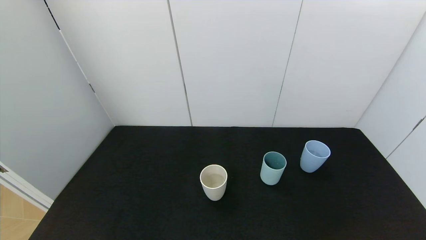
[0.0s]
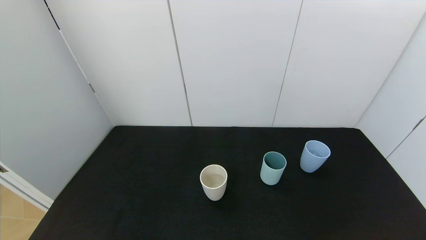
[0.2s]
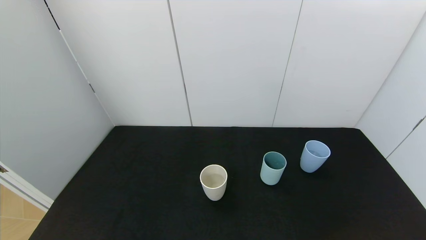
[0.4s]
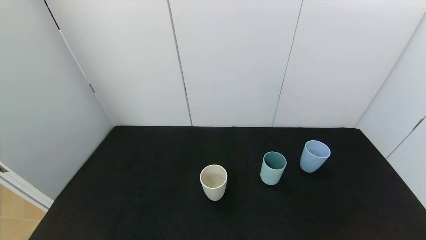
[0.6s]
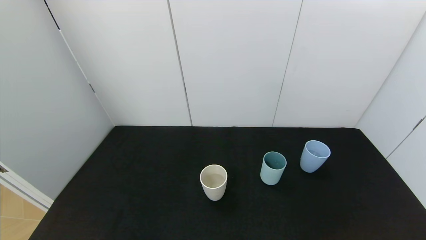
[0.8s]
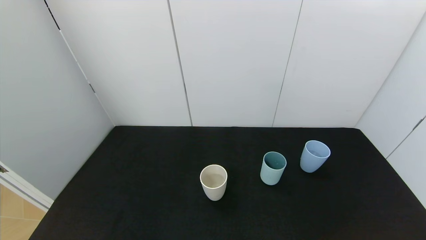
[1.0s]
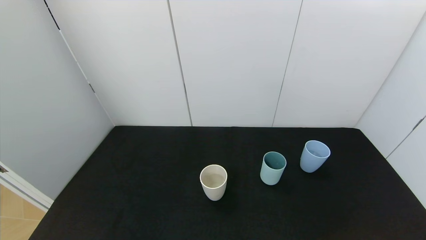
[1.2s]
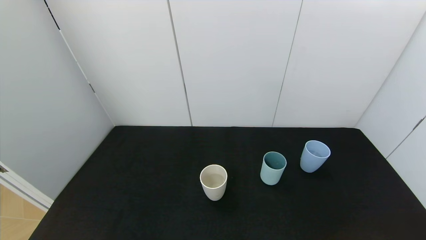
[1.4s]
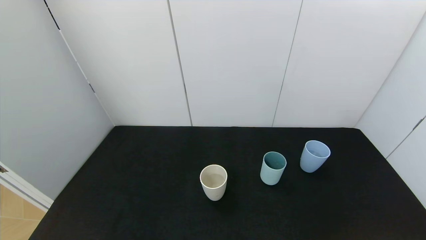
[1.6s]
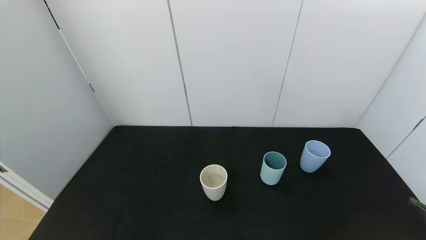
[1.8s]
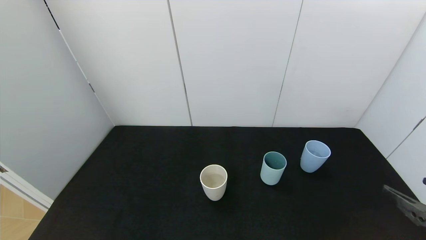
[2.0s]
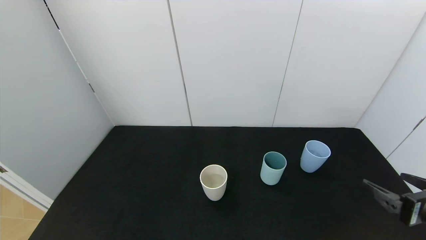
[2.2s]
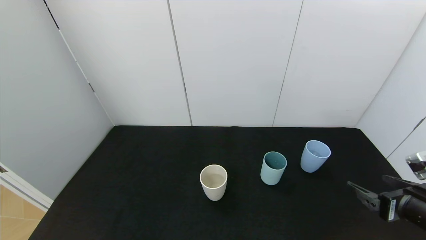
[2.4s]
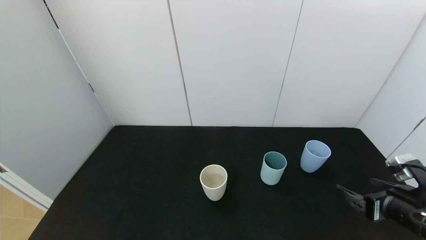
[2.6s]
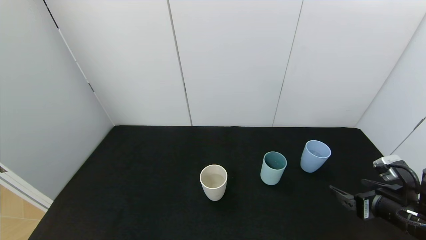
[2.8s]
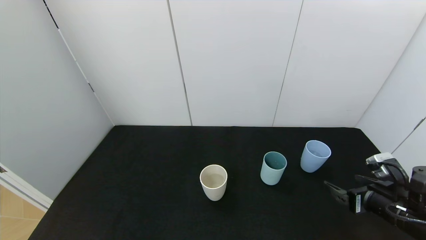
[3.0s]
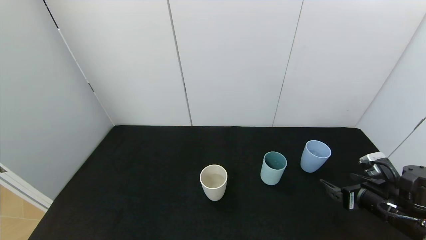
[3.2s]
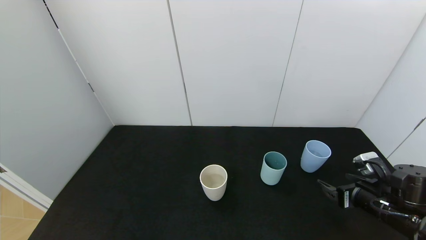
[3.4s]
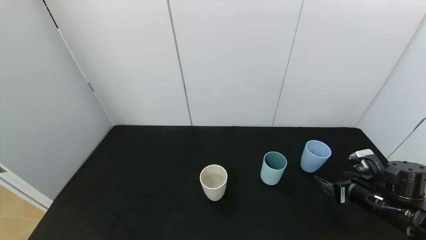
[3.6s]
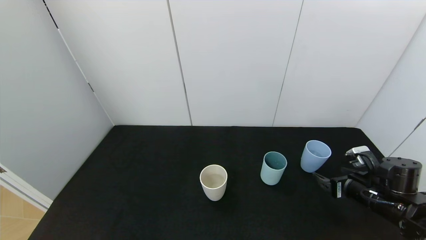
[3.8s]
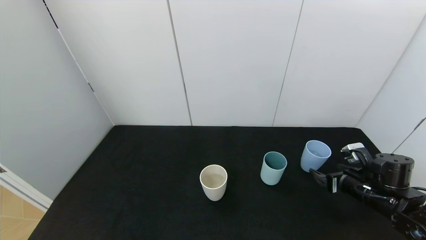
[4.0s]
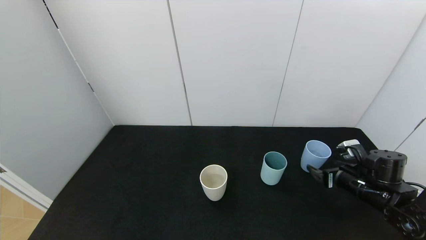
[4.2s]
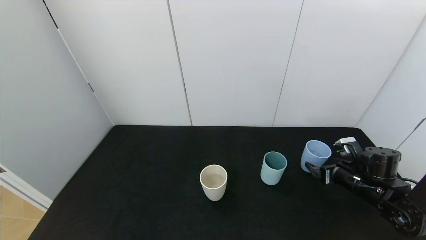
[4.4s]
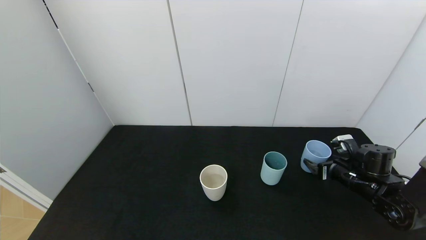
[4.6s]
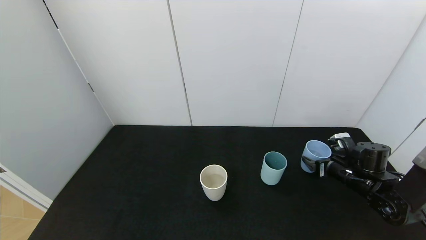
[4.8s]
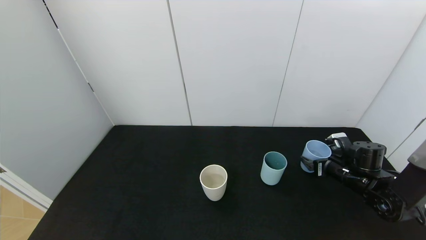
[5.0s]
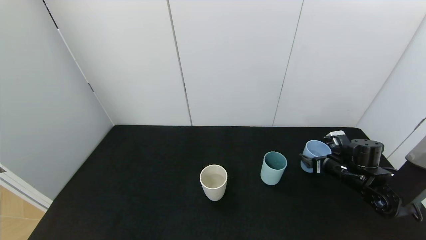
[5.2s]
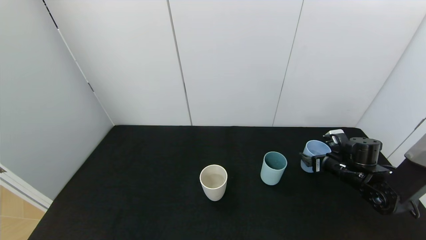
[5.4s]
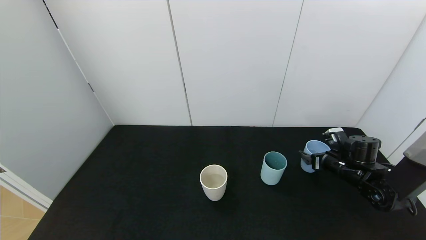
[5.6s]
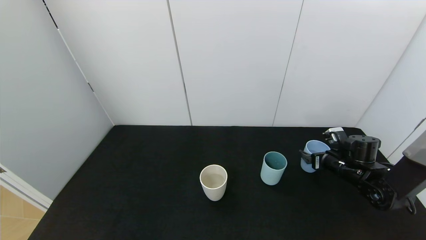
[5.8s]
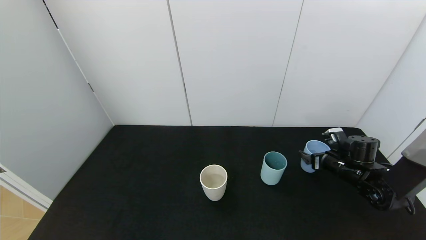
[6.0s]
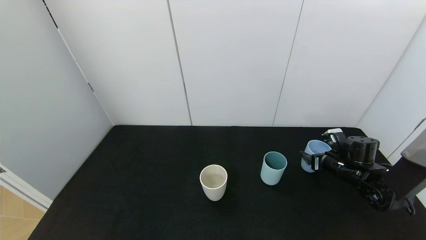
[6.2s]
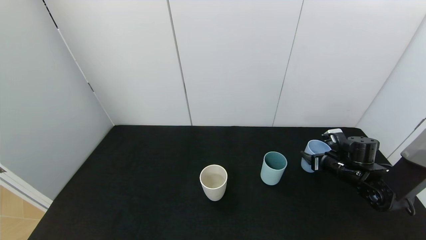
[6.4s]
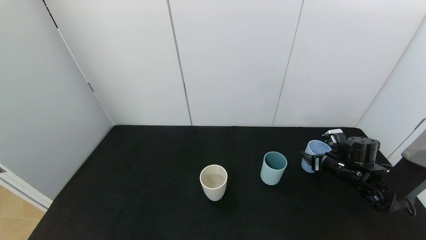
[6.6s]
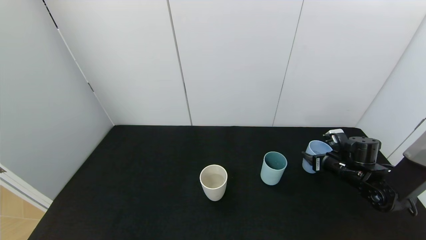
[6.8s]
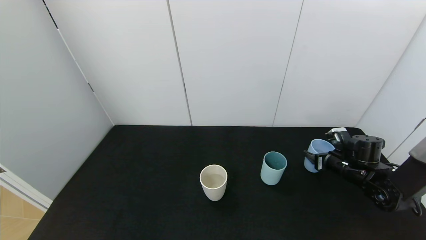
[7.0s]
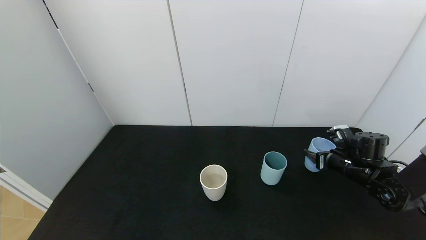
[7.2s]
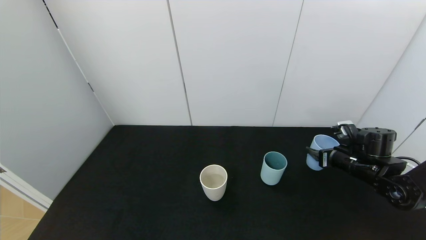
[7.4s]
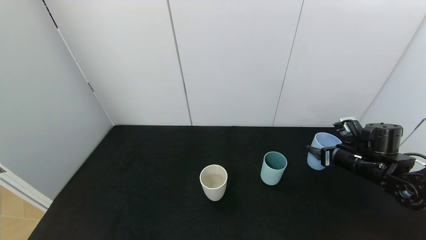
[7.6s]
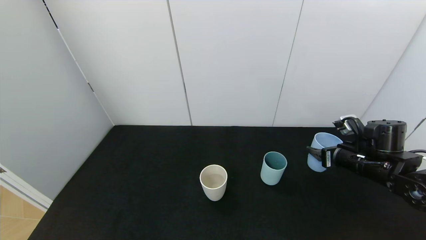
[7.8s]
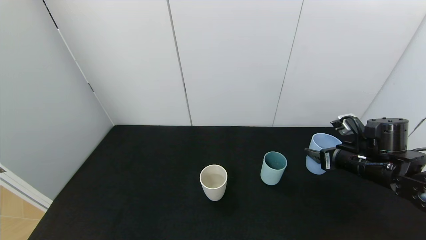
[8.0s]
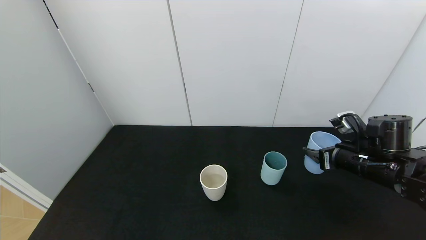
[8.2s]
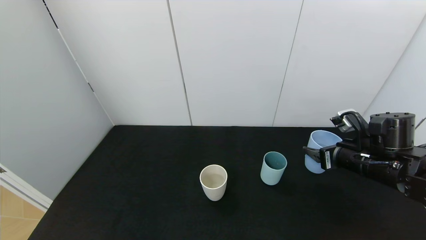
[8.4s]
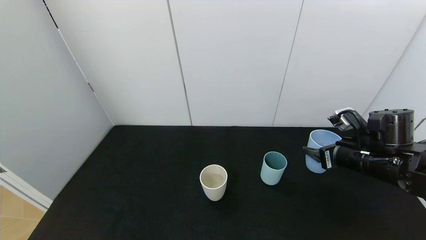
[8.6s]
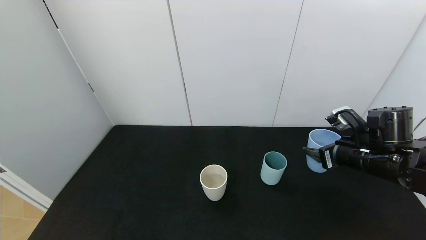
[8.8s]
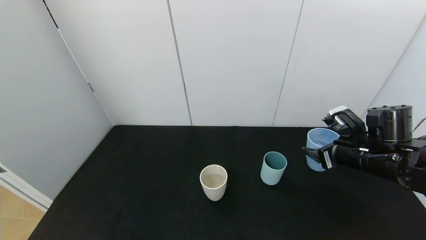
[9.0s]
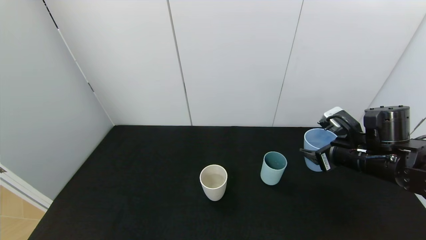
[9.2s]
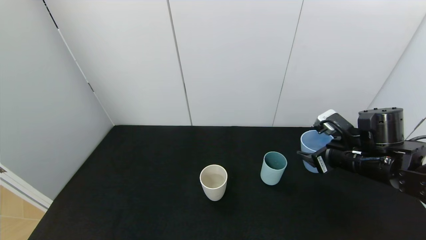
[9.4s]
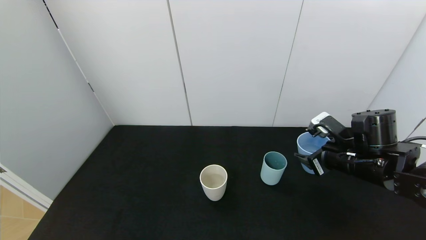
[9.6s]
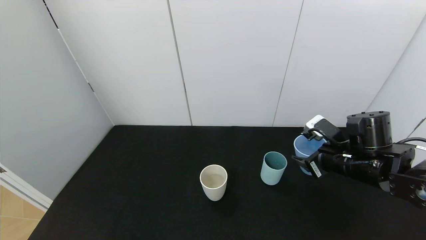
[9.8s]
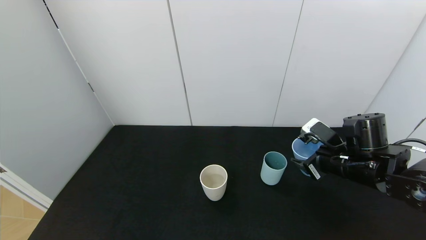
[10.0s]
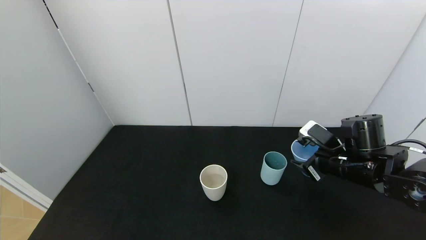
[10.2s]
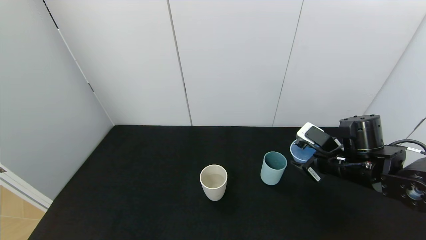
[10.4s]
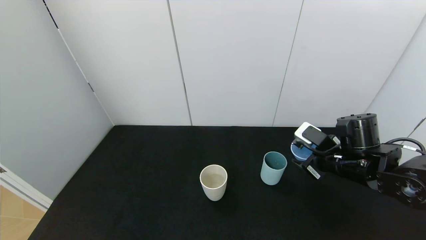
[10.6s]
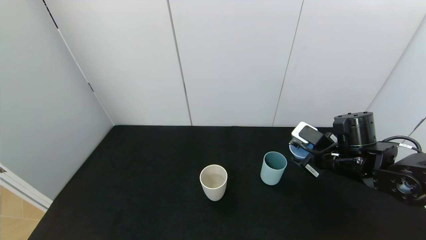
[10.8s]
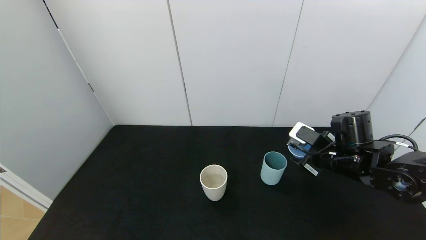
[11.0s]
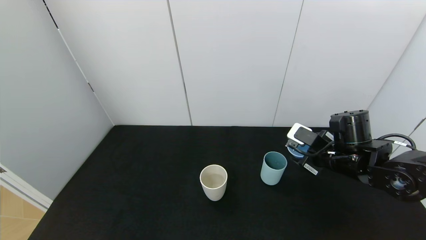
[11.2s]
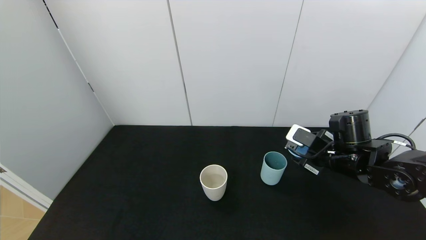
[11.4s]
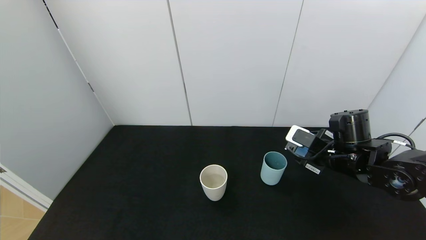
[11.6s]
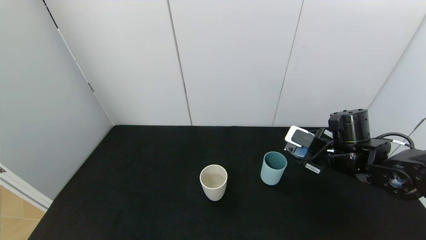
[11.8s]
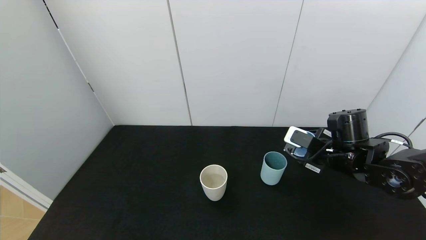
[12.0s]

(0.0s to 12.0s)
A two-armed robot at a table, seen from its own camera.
Task of the whole recording: use the gripper to pour the water into the other two cups on black table.
Step, 0.0s - 6.8s: Pick up the blue plastic cup with right gripper.
1.6s - 3.0s: The right gripper goes about 20 cm forward and downward.
3.0s - 4.4s: The right gripper shifts approximately 10 cm forward.
4.4s - 6.0s: The right gripper travels forward by roughly 5 cm.
6.0s - 7.6s: The right gripper travels upward by approximately 5 cm, and closes its fingers.
7.6s - 9.0s: The right gripper heads upward, covering about 5 cm.

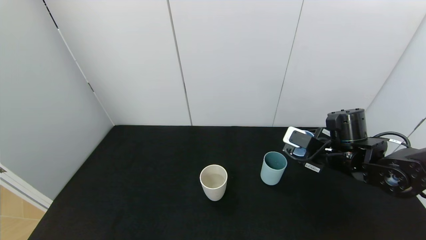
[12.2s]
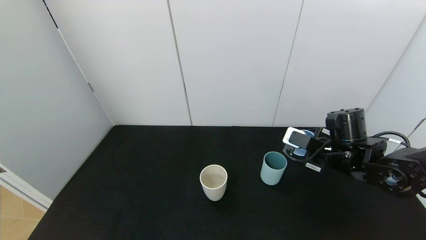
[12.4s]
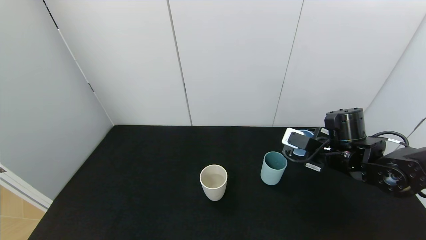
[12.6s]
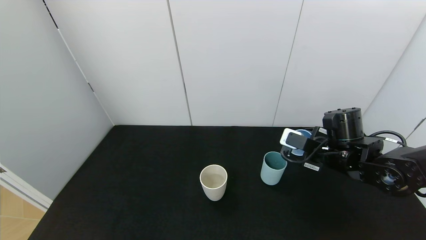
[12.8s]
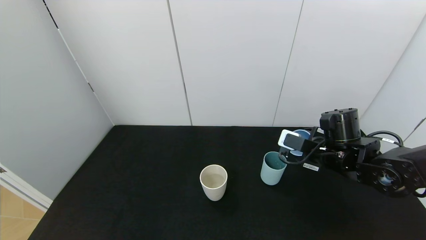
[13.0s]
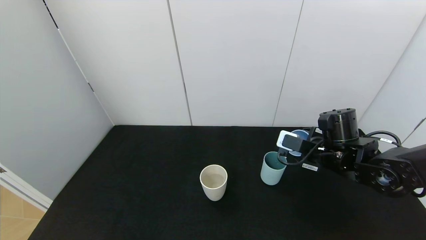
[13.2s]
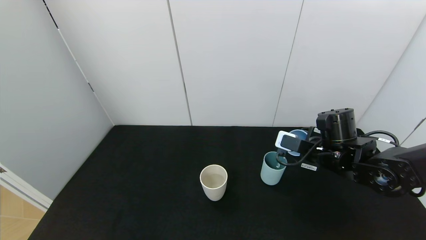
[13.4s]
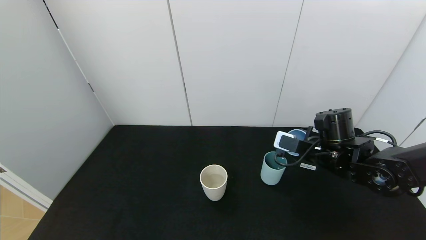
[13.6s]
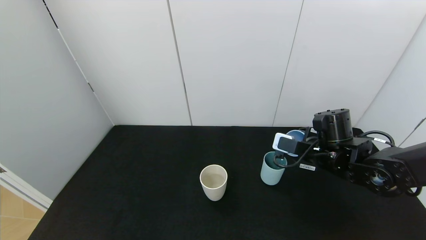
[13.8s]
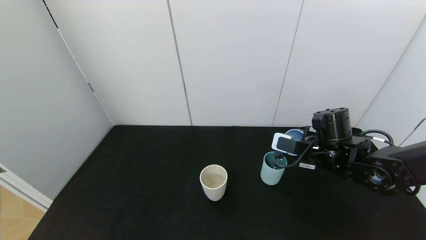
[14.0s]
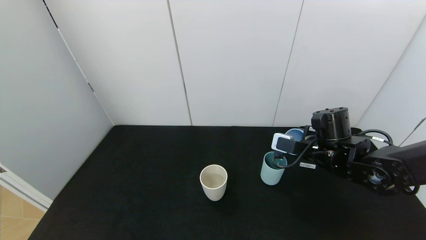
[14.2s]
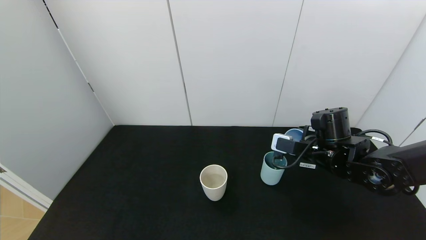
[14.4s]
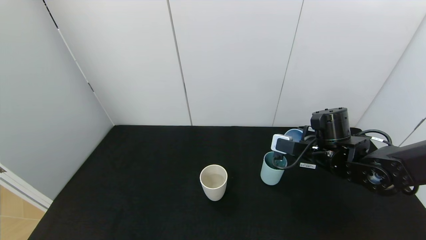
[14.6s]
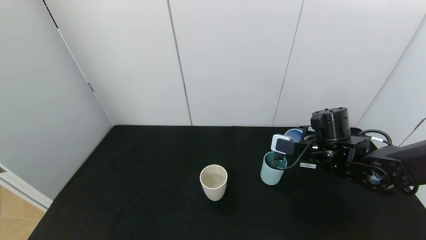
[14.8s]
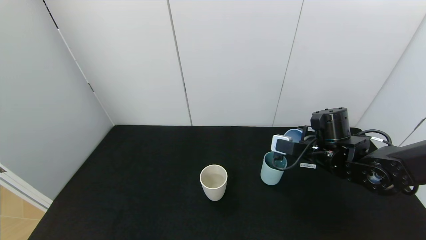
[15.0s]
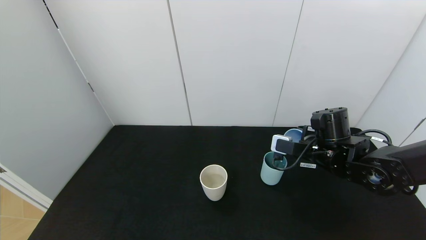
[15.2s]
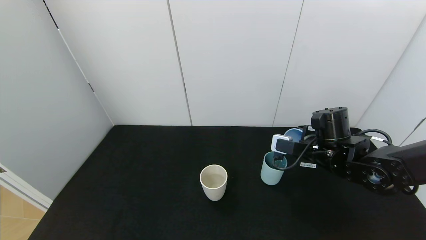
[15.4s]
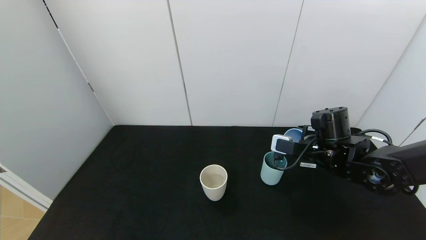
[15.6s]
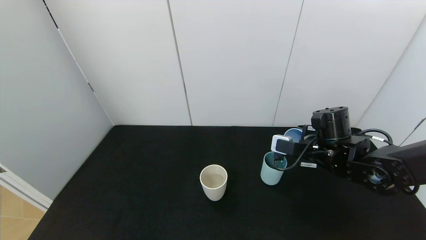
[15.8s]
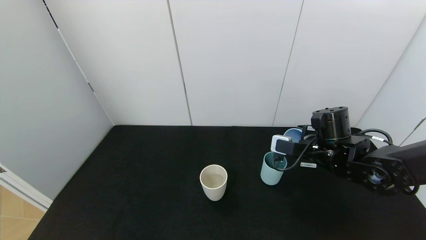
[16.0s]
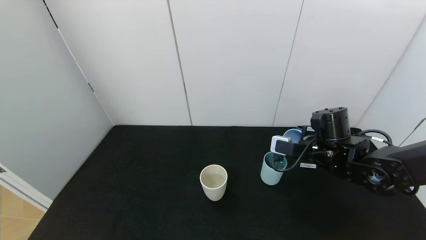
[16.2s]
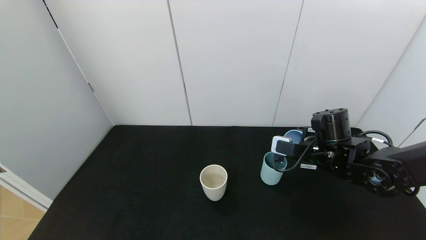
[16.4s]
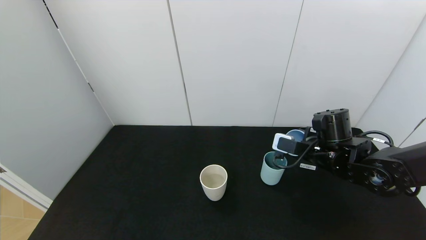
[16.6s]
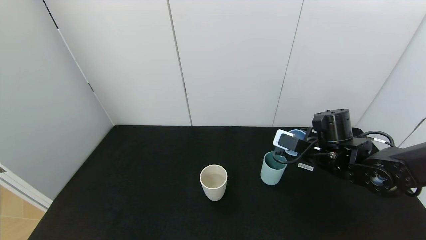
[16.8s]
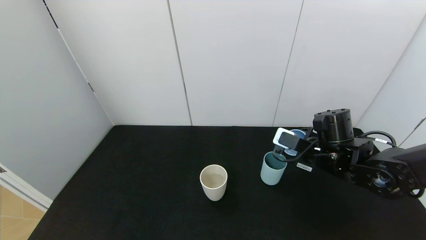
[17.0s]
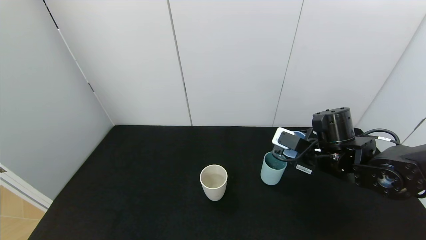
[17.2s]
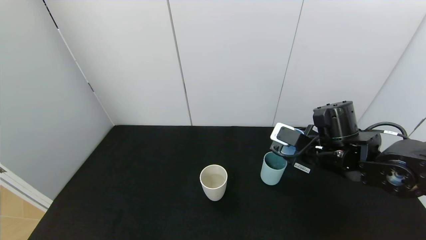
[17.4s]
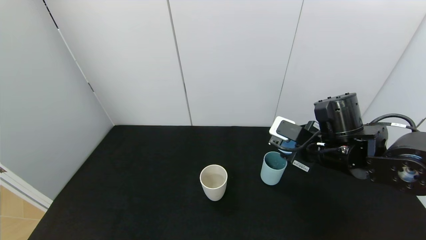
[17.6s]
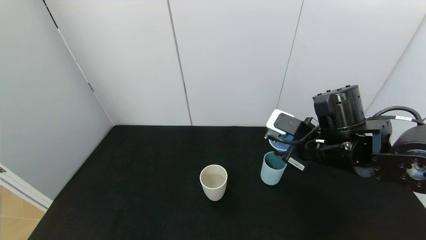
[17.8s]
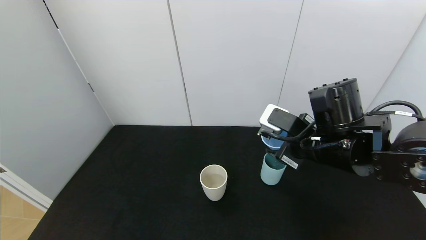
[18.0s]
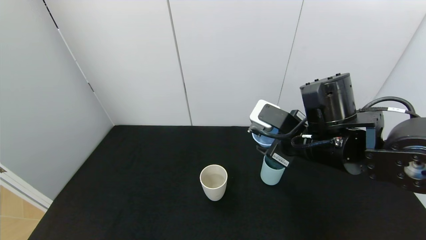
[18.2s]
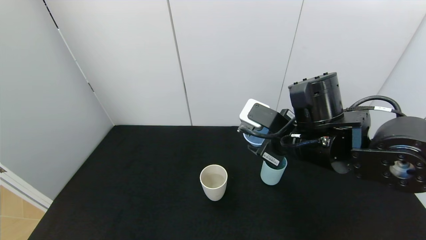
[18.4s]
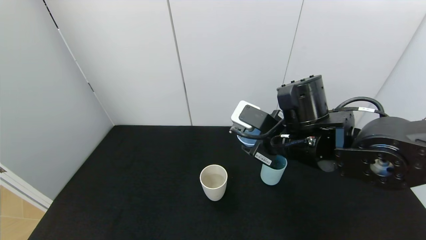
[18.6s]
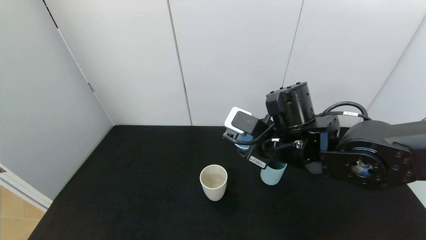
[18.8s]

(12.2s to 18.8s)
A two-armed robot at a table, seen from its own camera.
Task of the whole recording: use the gripper to pour the water into the other two cups on black table.
Step, 12.2s - 17.4s: Pour water into the green plastic cup with right gripper.
12.2s - 17.2s: The grippers stay close to where they were, moving slightly.
17.2s - 18.8s: The right gripper moves to the left and upward, roughly 10 cm.
